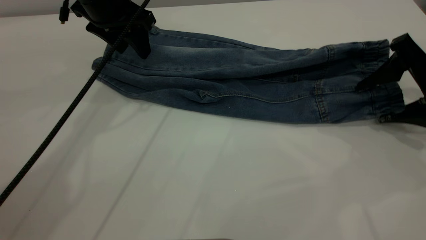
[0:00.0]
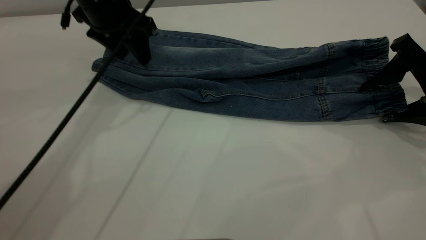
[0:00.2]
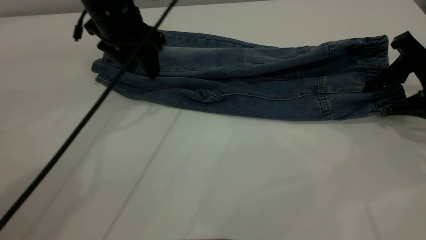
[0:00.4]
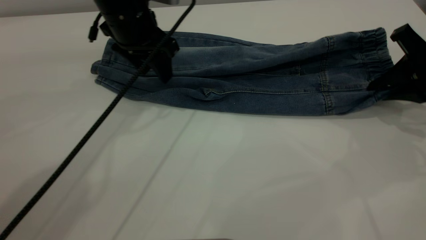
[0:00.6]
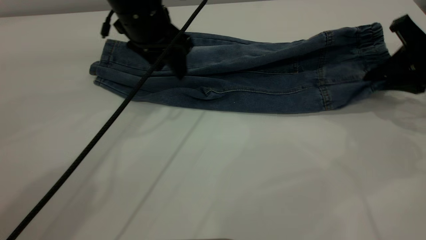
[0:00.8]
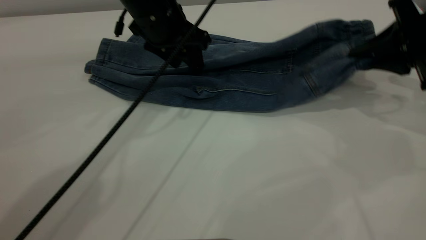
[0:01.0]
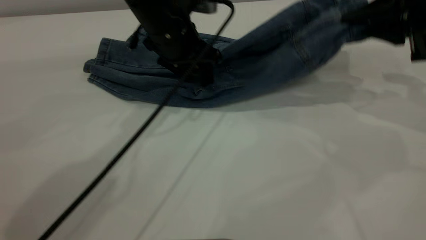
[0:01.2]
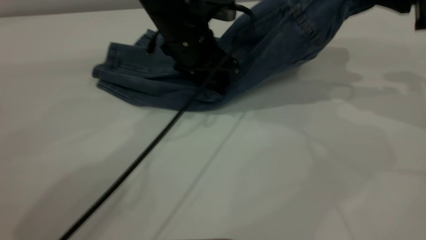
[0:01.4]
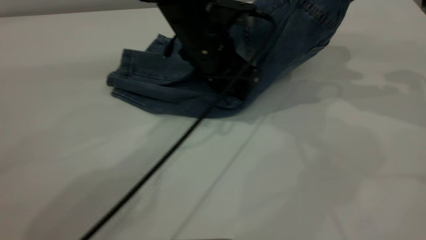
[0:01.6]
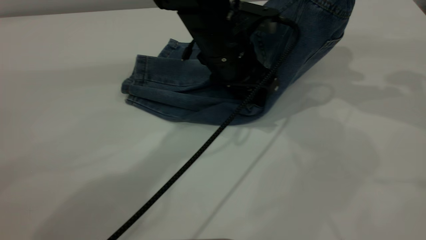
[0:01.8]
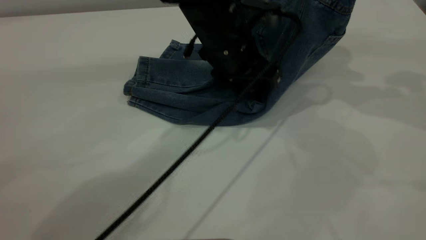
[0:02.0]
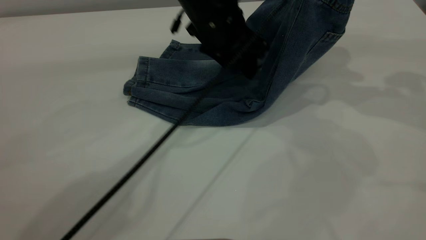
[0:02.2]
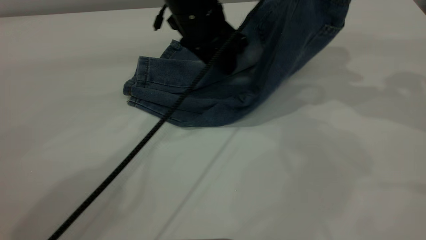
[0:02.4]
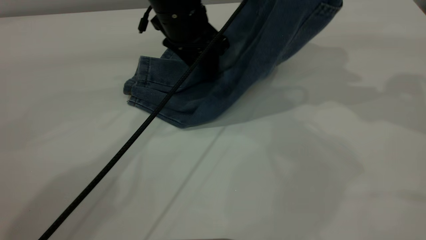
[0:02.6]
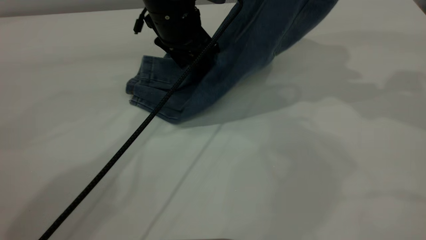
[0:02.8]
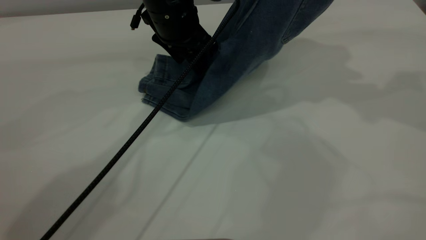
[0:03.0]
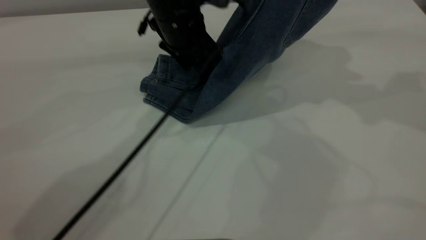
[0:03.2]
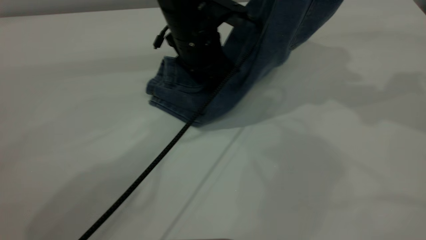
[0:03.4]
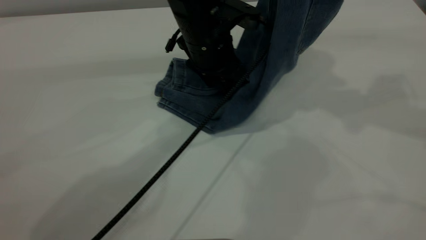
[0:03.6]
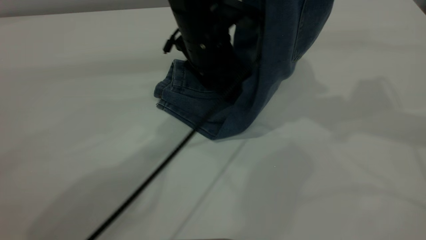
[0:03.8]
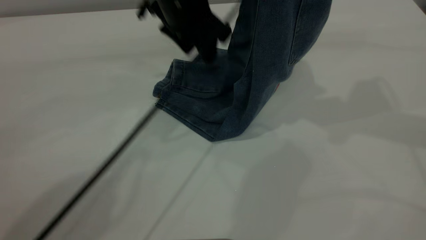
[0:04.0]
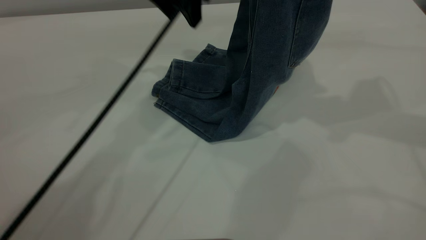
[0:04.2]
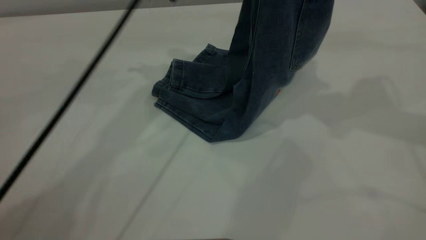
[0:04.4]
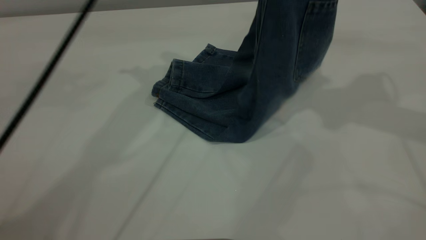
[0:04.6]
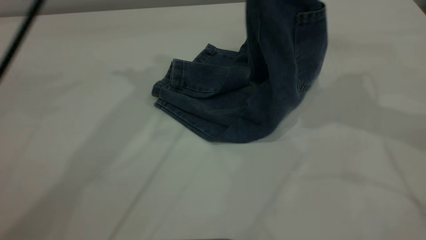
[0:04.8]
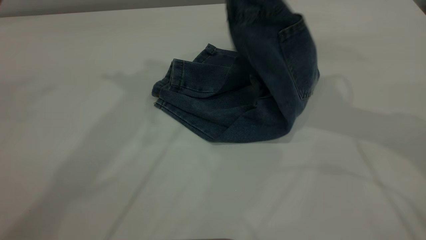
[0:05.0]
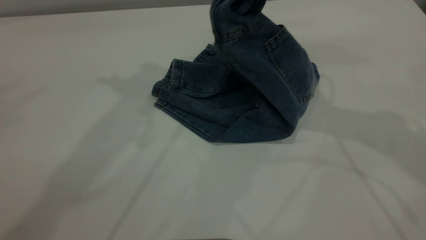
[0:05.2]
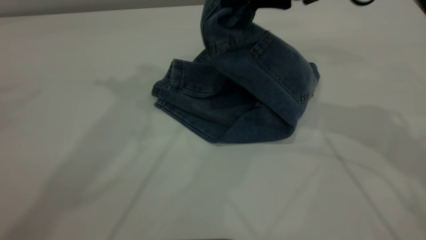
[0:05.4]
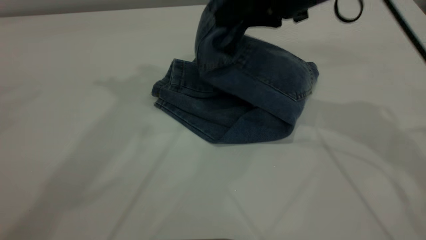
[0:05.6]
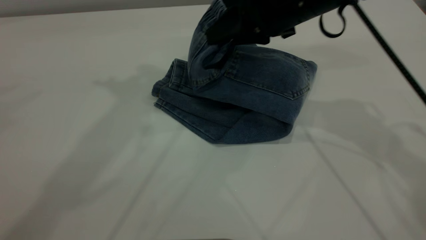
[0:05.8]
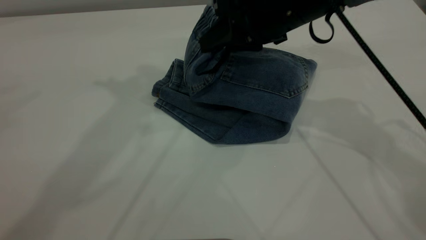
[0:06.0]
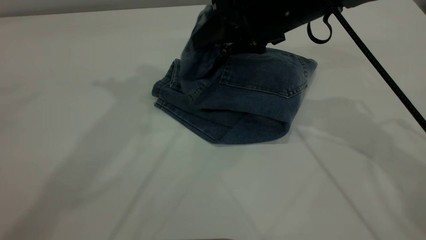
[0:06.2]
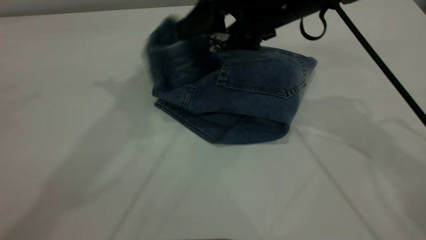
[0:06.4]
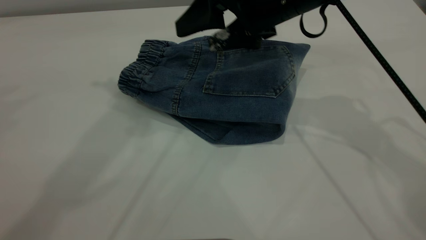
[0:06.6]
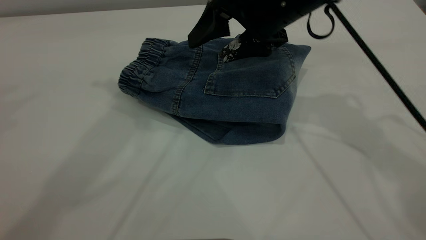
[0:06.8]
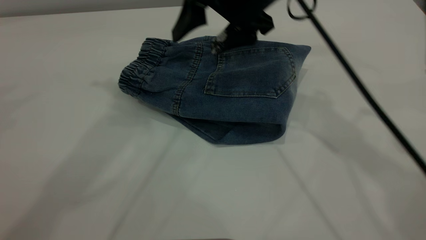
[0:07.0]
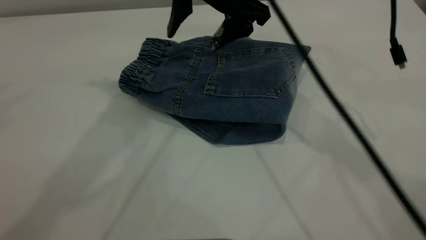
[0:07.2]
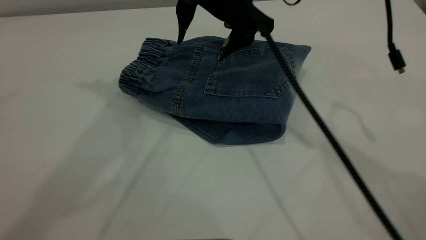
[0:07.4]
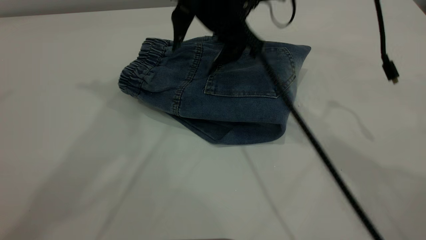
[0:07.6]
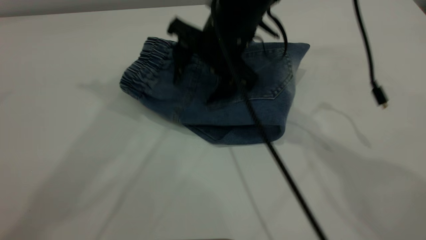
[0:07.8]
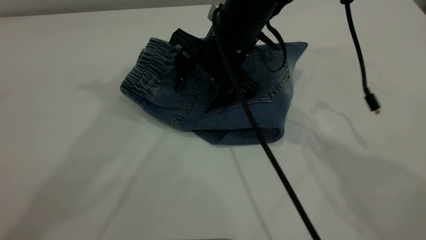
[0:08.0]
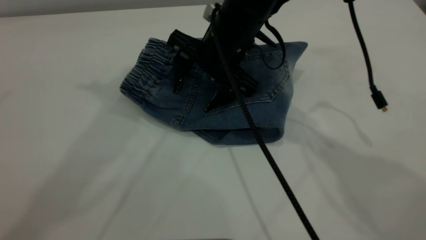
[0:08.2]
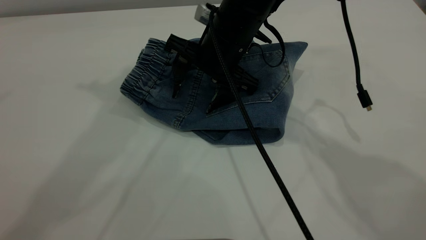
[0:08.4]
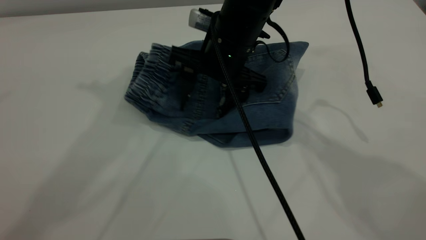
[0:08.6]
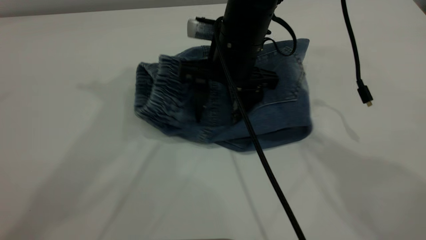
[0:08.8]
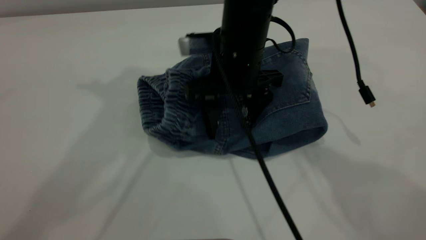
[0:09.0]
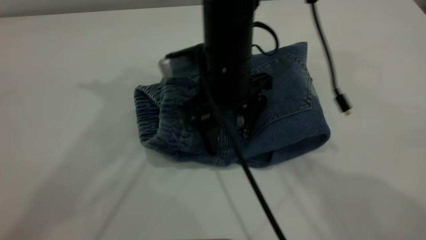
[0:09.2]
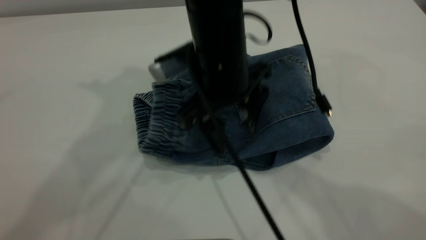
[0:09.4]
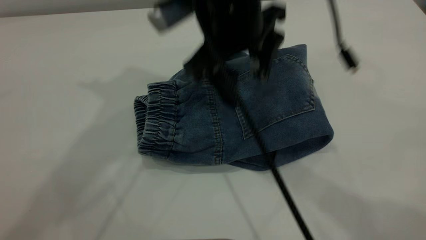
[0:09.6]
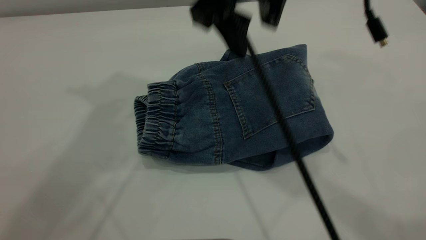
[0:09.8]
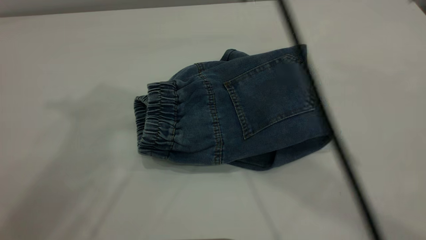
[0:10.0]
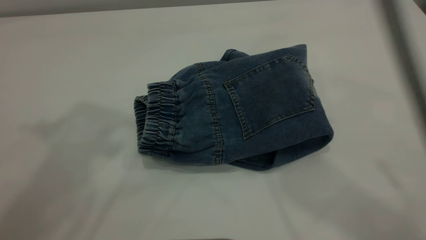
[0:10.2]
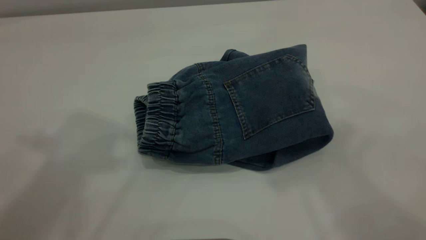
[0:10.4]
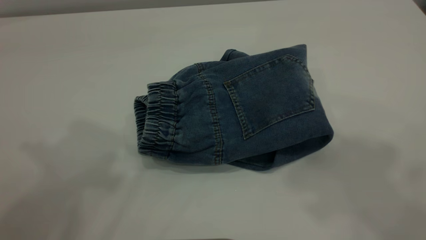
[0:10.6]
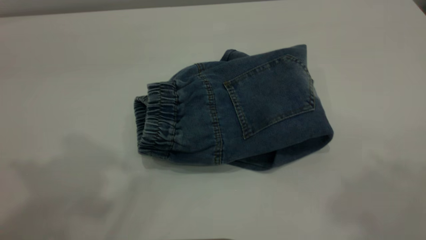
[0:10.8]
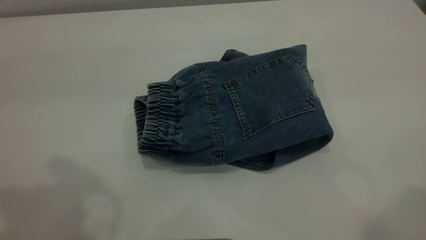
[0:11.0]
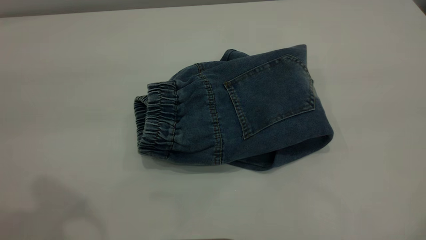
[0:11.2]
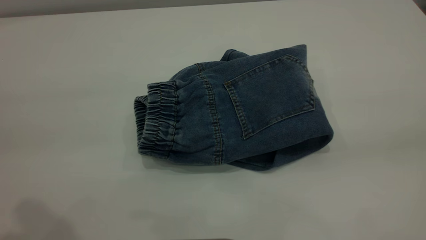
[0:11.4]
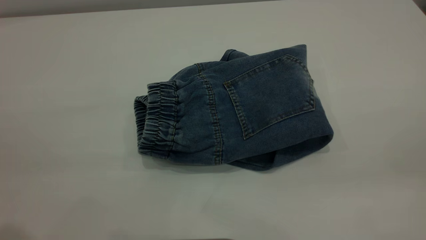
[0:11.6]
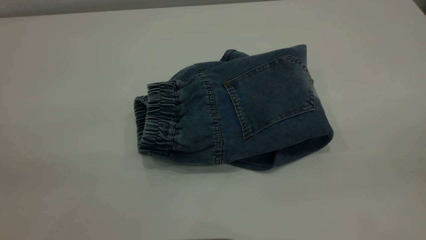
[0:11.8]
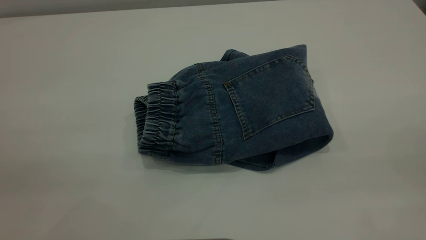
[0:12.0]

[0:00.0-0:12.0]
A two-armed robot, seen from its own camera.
Step, 0:00.0 to 0:06.6: Fold your pants from right to left.
0:00.0 to 0:01.6: The left gripper travels to the right and downward by approximately 15 cm. The right gripper goes roughly 15 cm upward, and closes its fingers.
0:01.6 to 0:03.0: The right gripper goes some 10 cm upward. Meanwhile the left gripper shifts about 5 cm to the left.
0:03.0 to 0:04.4: The left gripper shifts approximately 15 cm upward.
0:04.4 to 0:06.0: The right gripper is displaced downward and to the left by approximately 20 cm. Meanwhile the left gripper travels upward and backward by roughly 15 cm.
0:06.0 to 0:07.6: The right gripper travels to the left by about 5 cm, and opens up.
0:07.6 to 0:09.0: The right gripper shifts by about 5 cm.
0:09.0 to 0:10.4: The right gripper heads upward, covering approximately 35 cm. The left gripper heads backward and upward, covering about 15 cm.

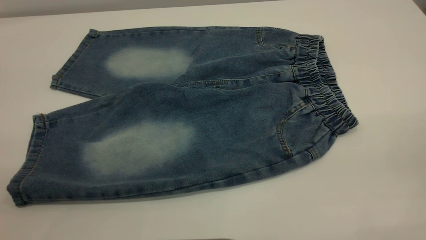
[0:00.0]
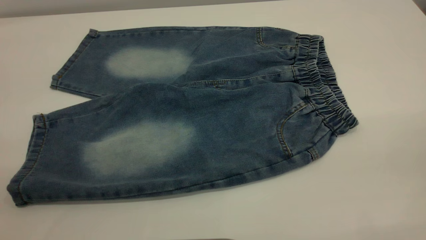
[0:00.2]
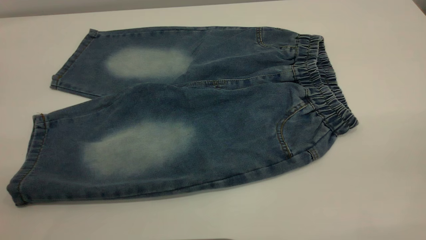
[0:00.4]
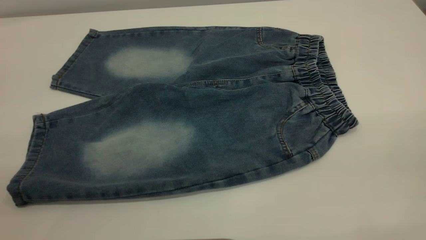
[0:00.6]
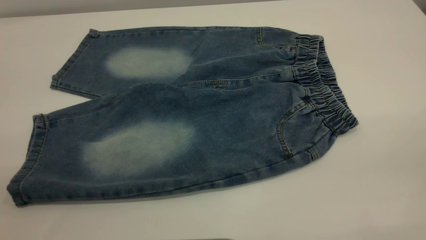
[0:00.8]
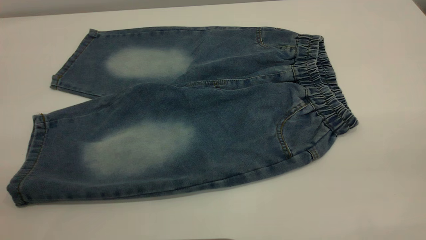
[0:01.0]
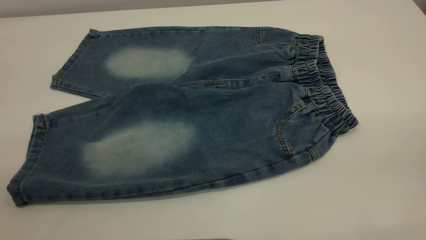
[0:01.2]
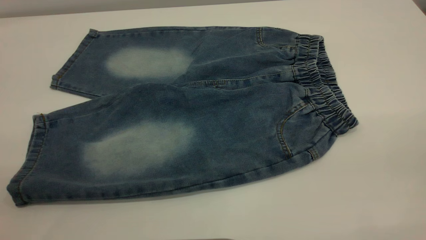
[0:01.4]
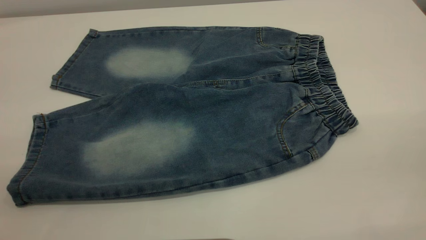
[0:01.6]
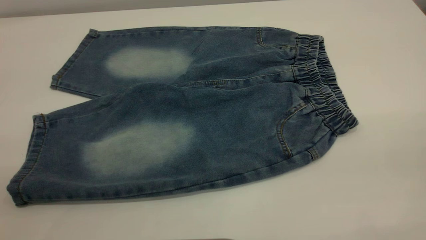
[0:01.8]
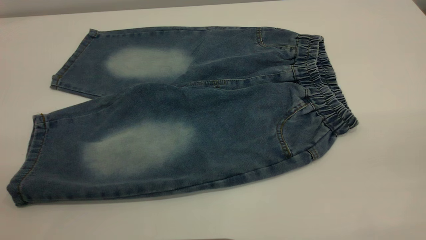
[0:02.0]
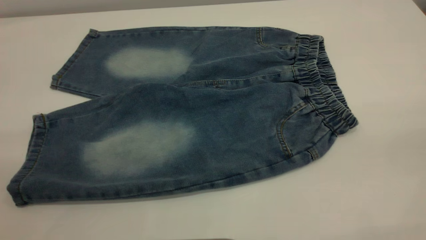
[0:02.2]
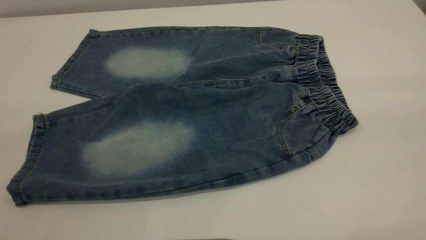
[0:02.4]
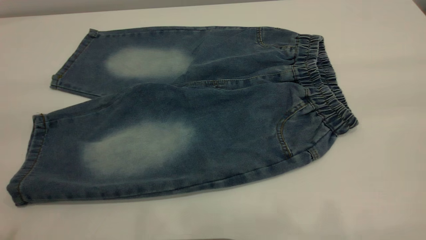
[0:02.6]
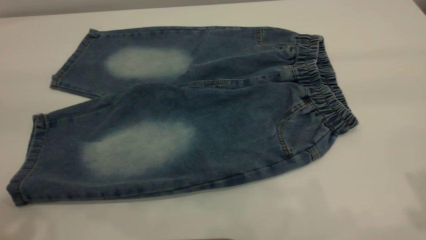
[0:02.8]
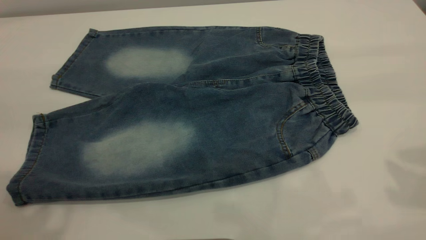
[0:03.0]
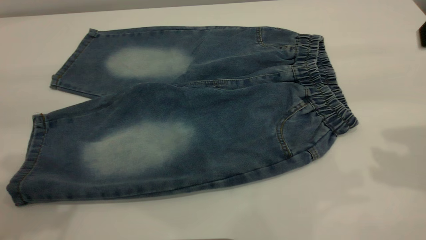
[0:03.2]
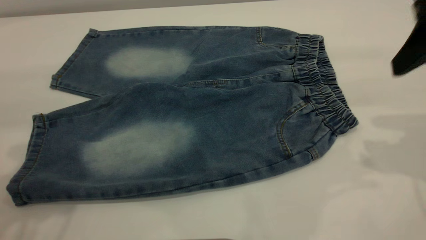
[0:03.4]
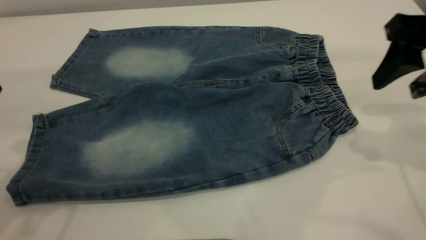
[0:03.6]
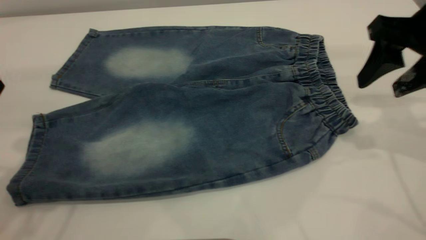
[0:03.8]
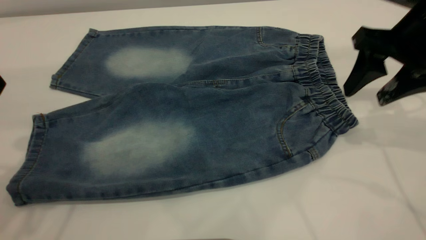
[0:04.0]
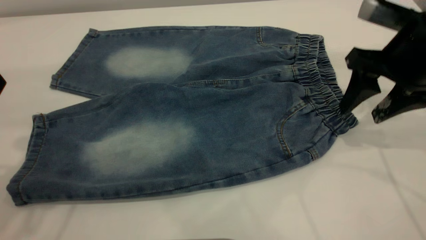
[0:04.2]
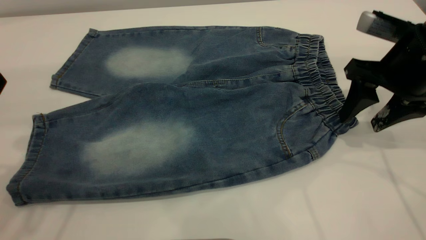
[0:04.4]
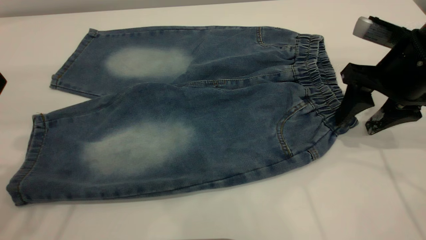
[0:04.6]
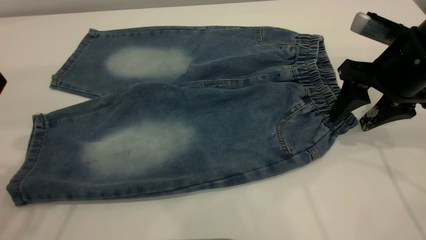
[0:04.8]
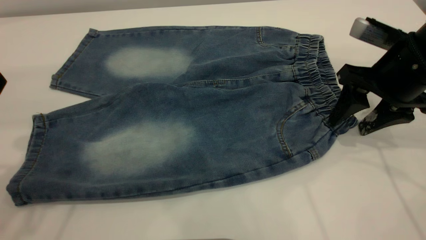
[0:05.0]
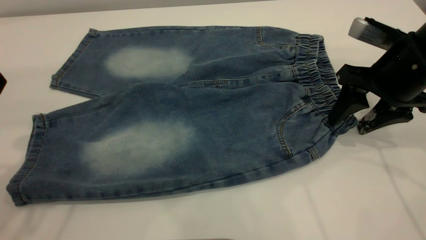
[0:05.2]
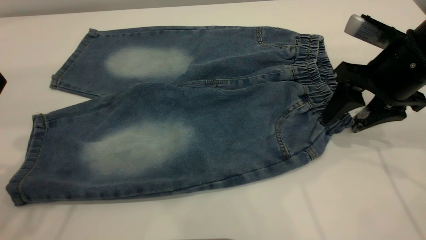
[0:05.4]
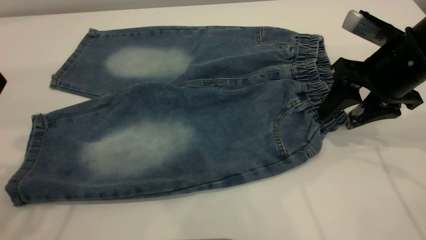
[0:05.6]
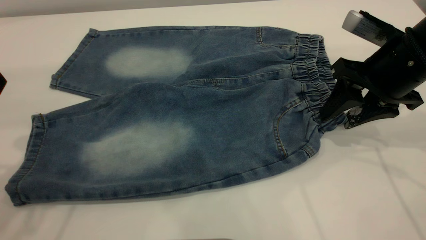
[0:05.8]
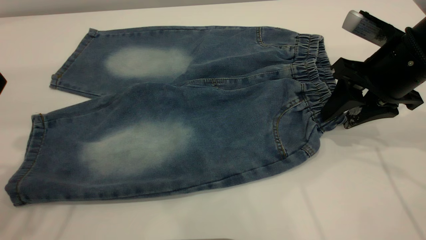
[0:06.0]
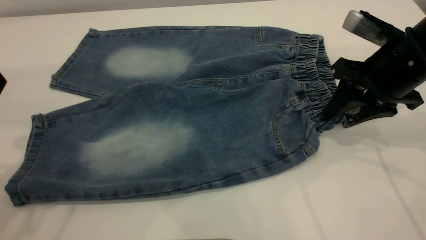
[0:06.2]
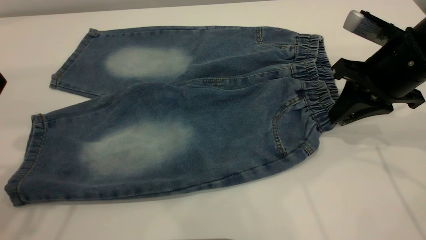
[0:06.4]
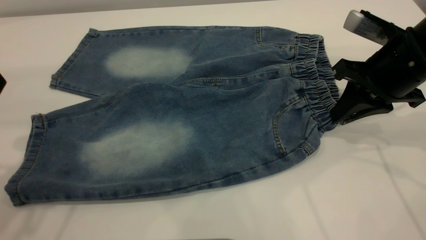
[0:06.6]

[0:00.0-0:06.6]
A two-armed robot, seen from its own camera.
0:00.0 to 0:01.6: The two grippers keep their place.
0:03.2 to 0:05.0: The right gripper moves downward and forward, approximately 15 cm.
0:05.0 to 0:06.6: The right gripper closes.
